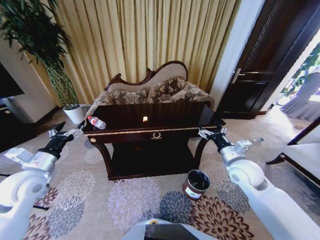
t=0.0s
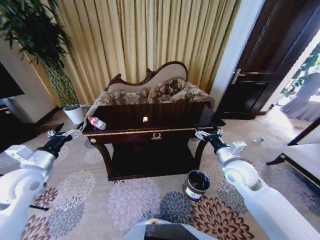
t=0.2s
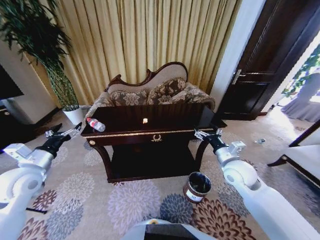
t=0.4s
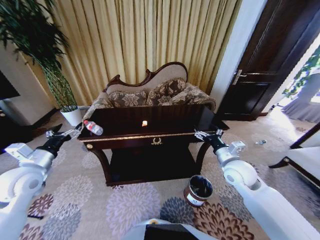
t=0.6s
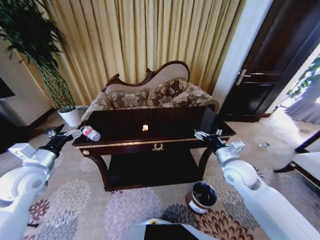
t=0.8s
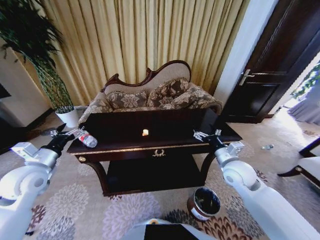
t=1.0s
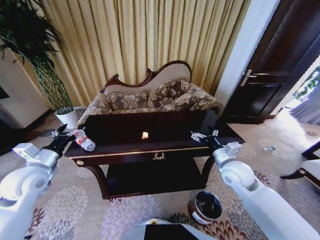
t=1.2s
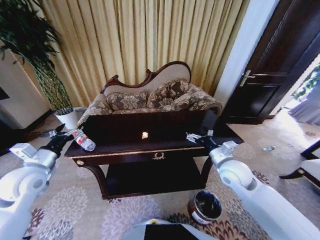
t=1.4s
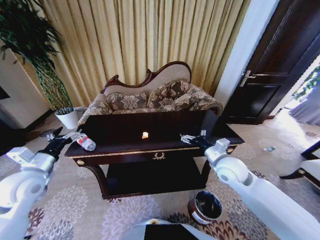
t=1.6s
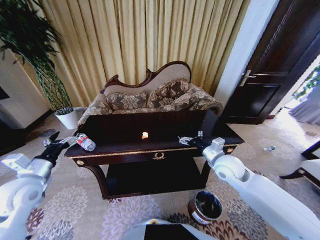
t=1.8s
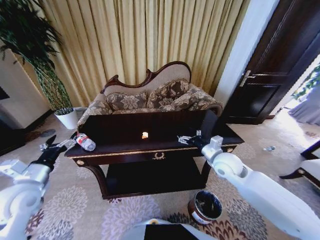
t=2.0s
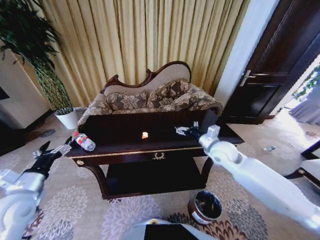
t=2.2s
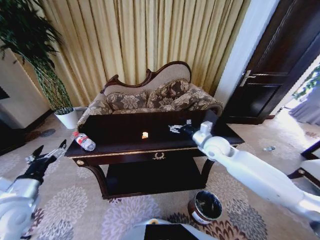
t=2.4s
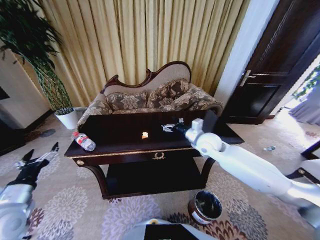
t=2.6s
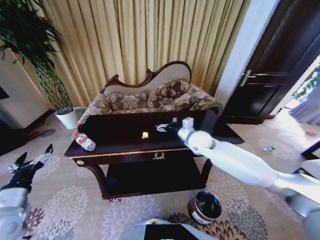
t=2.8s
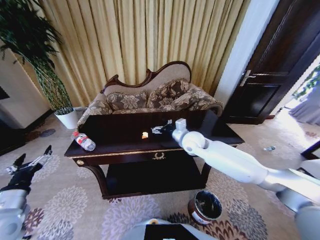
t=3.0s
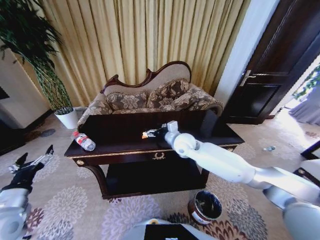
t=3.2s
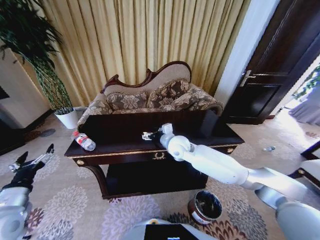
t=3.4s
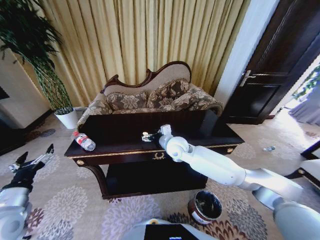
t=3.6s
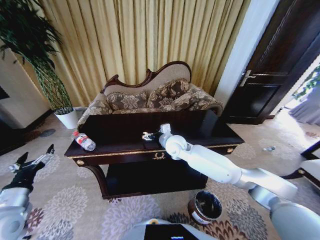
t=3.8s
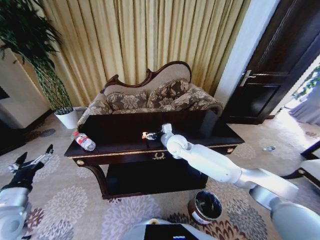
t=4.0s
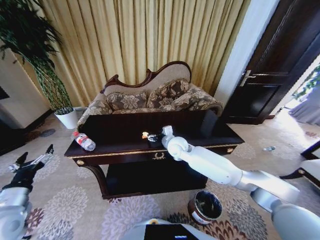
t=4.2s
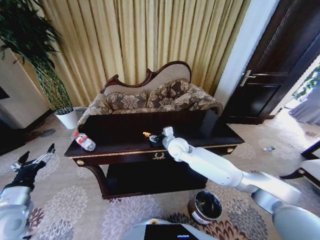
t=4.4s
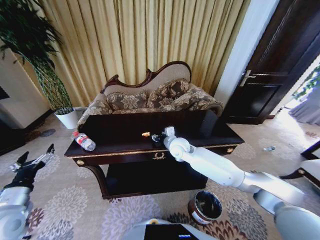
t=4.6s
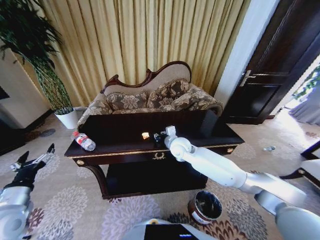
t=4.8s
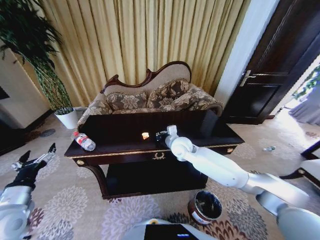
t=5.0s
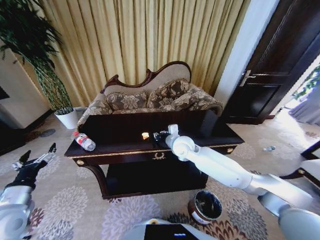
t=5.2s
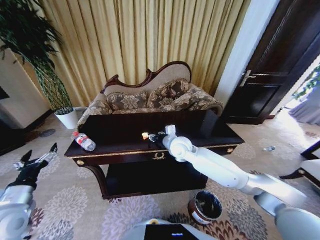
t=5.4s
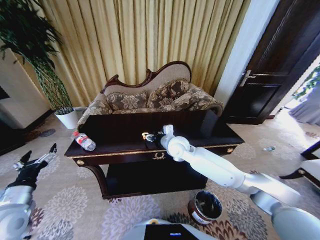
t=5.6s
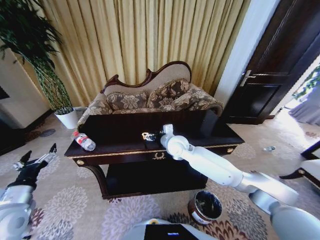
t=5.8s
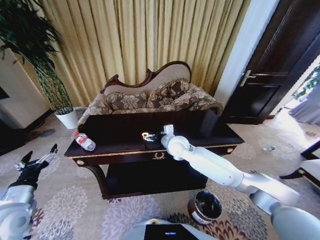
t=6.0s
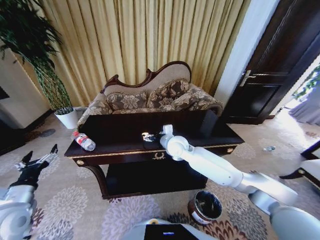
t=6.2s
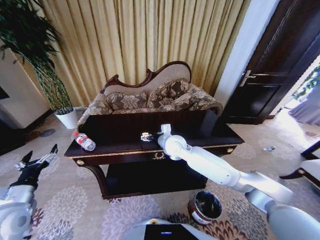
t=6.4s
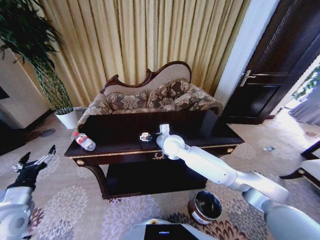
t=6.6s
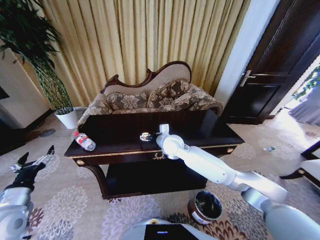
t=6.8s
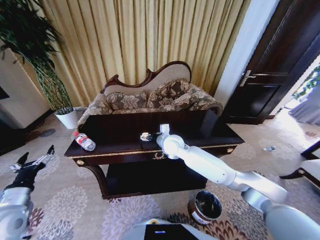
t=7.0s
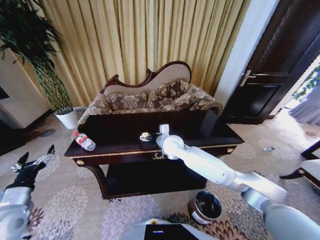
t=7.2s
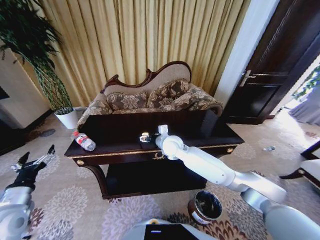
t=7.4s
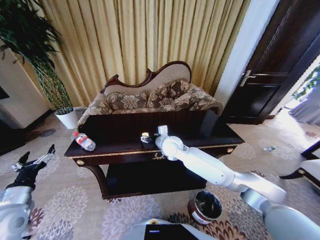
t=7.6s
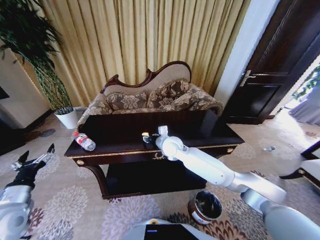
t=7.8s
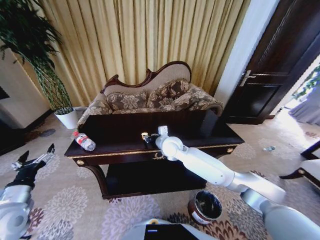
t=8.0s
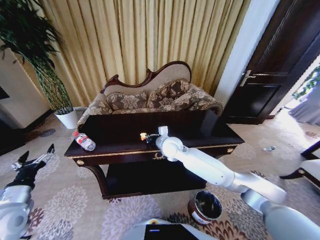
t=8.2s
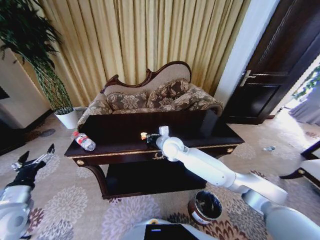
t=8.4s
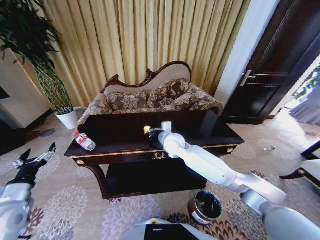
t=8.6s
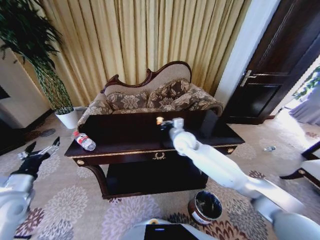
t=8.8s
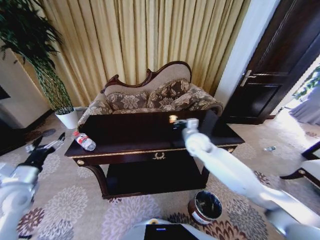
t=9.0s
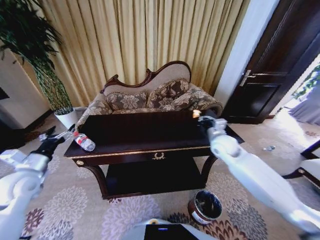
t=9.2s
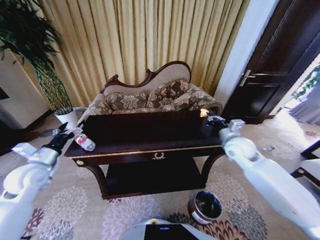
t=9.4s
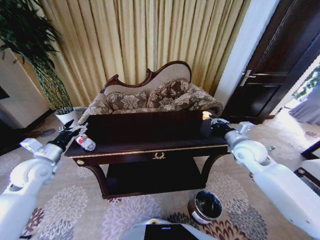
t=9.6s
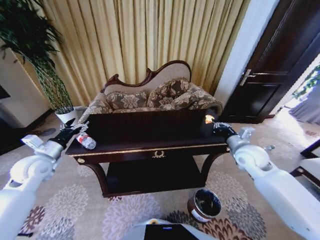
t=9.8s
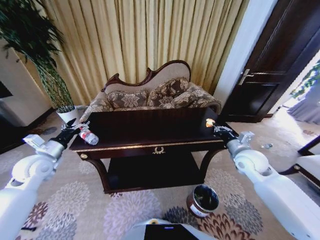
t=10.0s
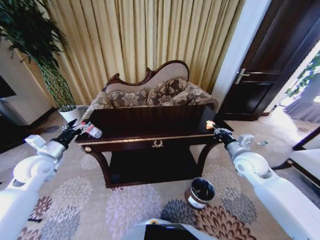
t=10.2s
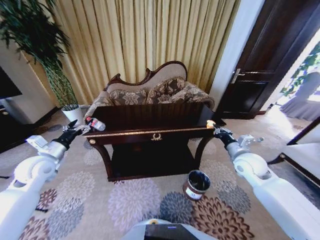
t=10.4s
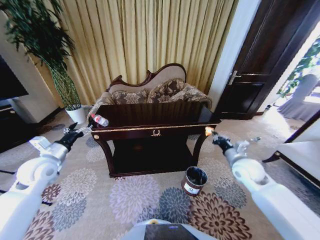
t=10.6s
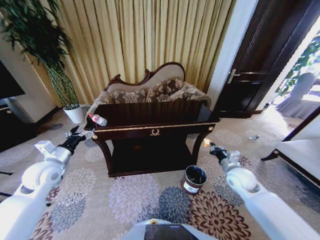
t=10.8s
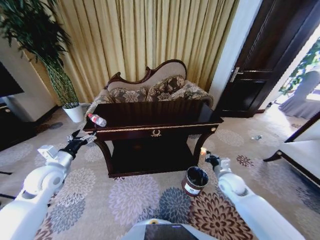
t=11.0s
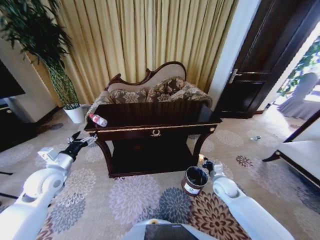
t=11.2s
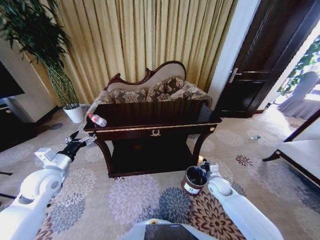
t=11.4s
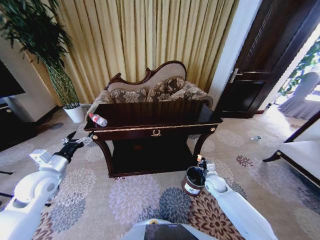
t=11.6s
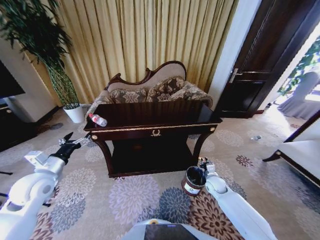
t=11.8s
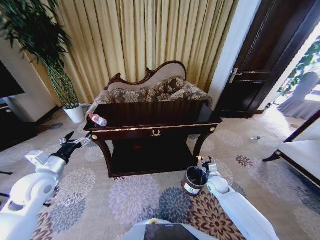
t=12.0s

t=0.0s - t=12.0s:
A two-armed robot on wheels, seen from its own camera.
Task of the whole recording: Move to the front of the table and place the trash on the table into the trash bin.
t=1.6s - t=3.0s: The left gripper moves backward, some 10 cm. Meanwhile the right gripper moves forward and to the left, approximately 15 cm.
t=3.0s - t=4.4s: The right gripper goes some 5 cm to the left.
t=4.4s - t=6.0s: The right gripper closes, then reopens.
t=6.0s - t=7.6s: The grippers move only a little.
t=7.6s - t=9.0s: The left gripper heads forward, covering about 5 cm. Meanwhile the right gripper shifts approximately 10 cm to the right, and closes.
t=9.0s - t=10.4s: The left gripper goes approximately 10 cm forward, while the right gripper moves to the right and backward, some 20 cm.
t=10.4s - t=12.0s: The right gripper heads downward, covering approximately 25 cm, and opens its fingers; the left gripper shifts about 5 cm backward.

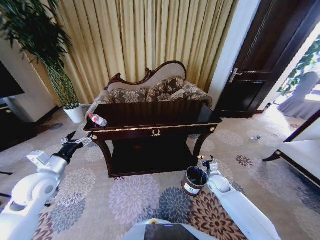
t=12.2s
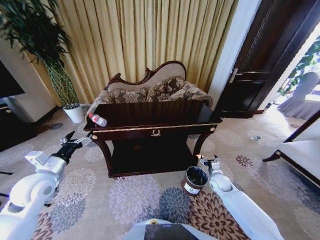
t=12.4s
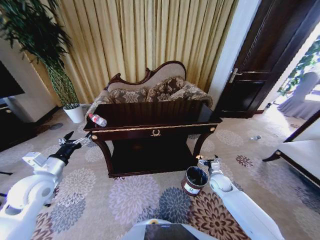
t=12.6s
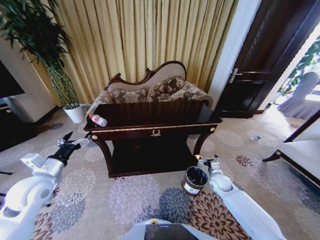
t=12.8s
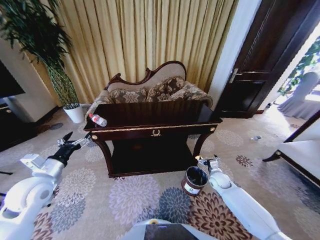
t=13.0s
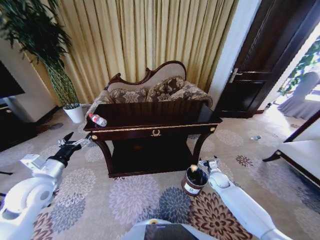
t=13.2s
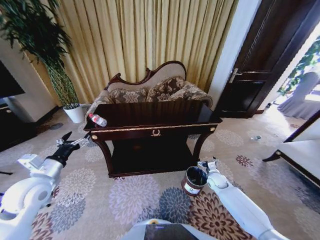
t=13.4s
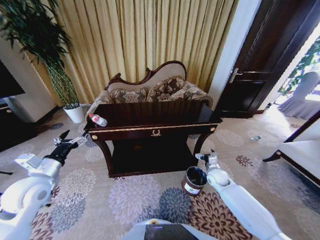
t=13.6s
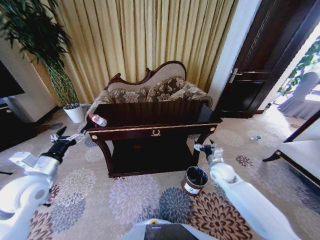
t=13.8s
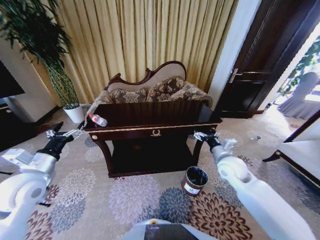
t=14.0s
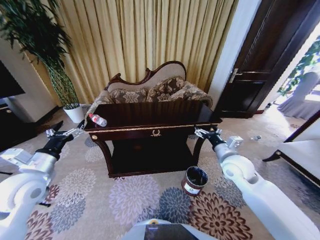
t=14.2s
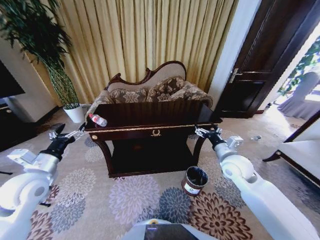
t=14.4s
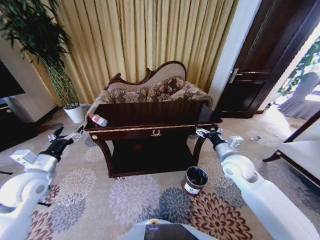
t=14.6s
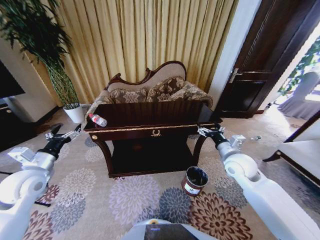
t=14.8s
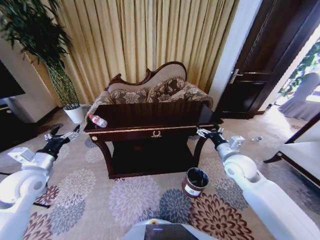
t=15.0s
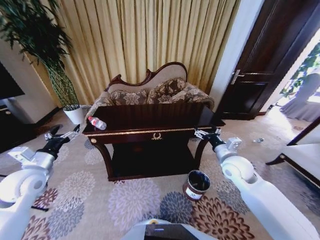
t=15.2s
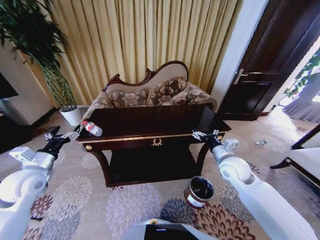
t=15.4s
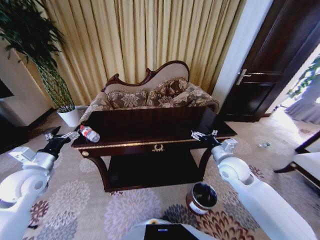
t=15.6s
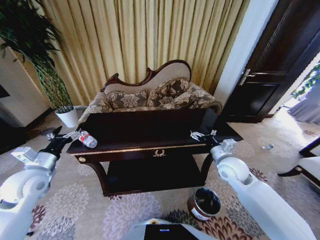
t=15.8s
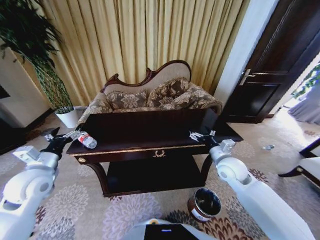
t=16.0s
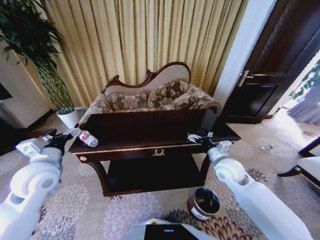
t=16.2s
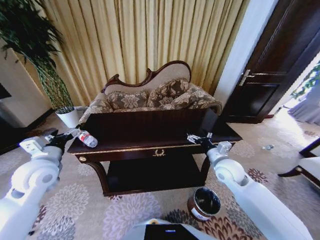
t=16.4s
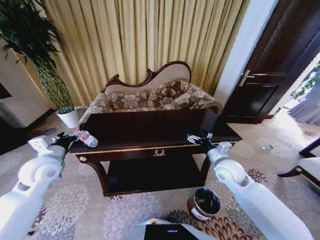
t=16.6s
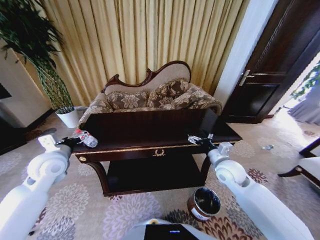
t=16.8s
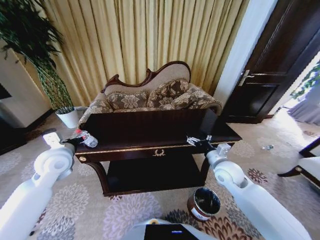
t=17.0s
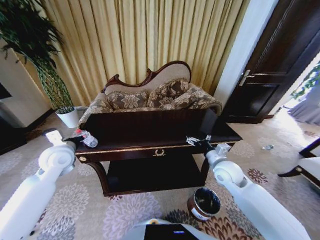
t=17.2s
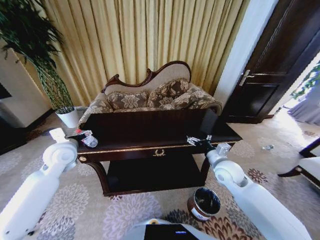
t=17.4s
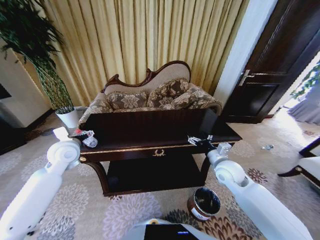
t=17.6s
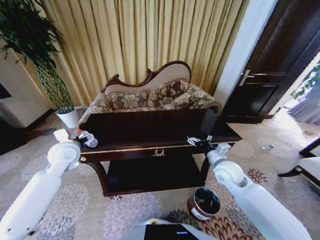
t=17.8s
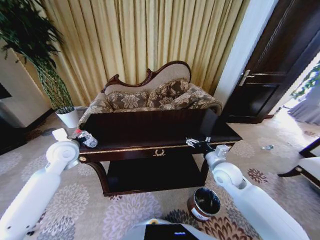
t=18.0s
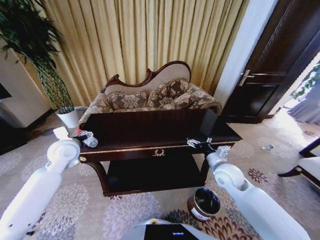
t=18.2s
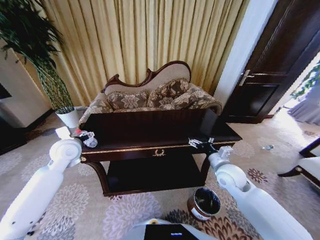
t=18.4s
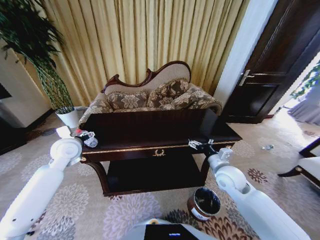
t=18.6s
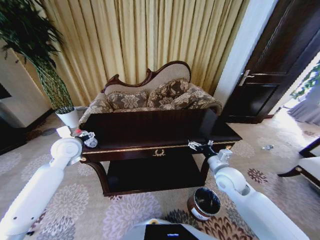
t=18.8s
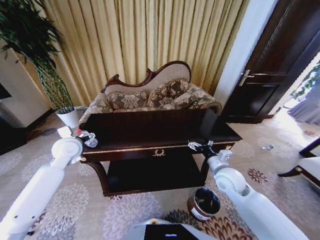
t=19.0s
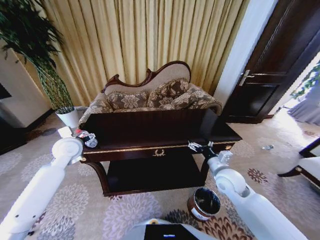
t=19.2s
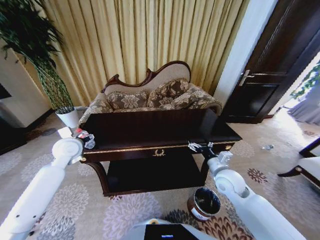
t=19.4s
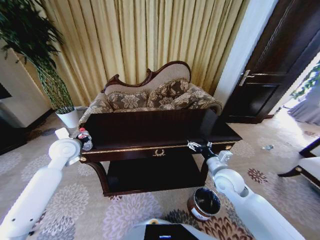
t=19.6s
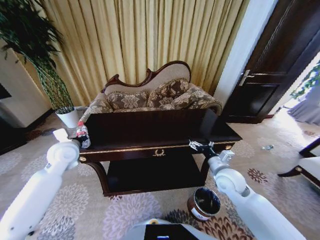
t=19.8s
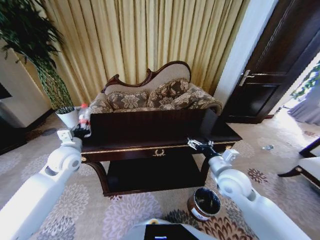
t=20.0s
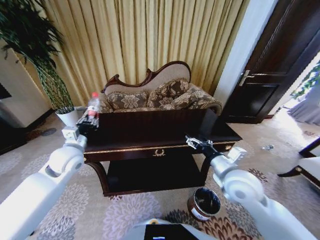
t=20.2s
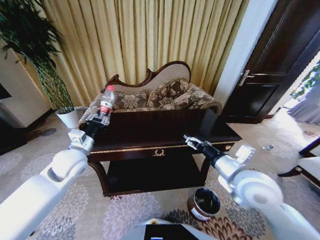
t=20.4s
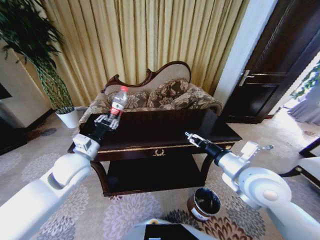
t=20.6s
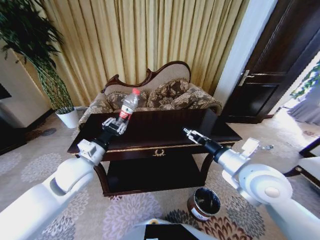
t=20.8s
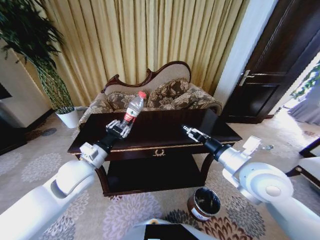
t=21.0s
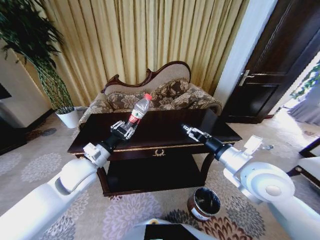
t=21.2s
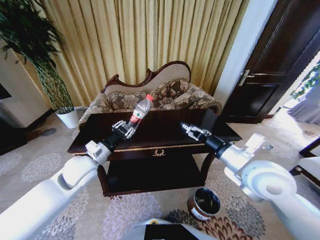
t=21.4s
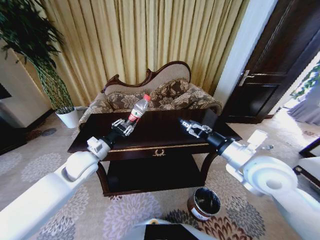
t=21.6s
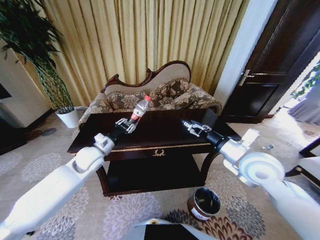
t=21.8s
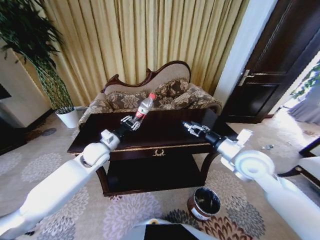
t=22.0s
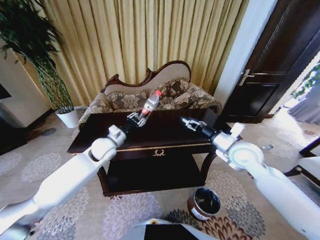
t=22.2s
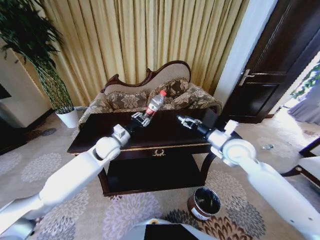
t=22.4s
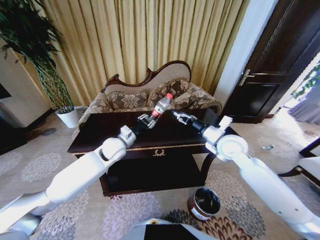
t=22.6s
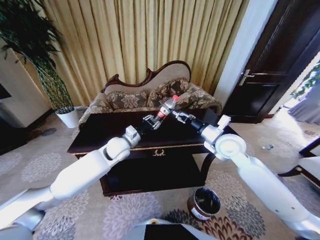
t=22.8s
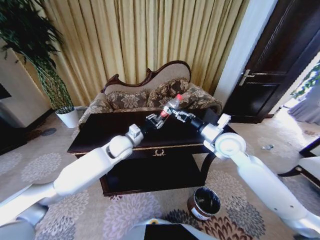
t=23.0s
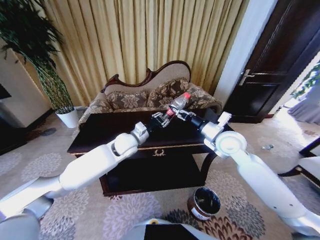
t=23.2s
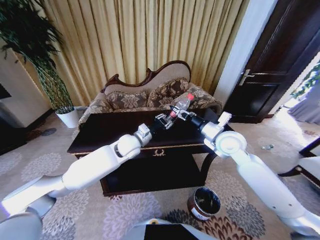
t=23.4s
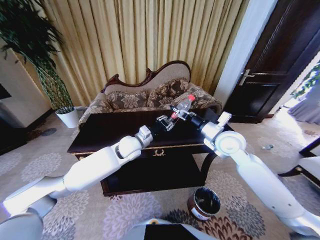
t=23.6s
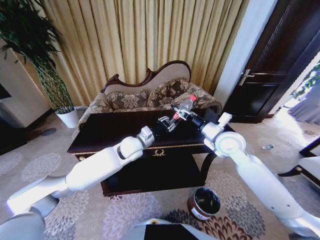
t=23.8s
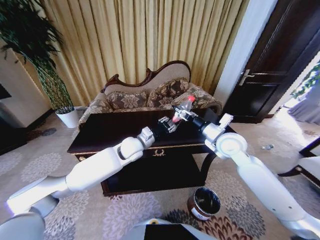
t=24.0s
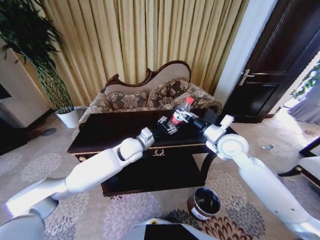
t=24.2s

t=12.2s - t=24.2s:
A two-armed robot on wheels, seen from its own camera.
Task of the whole recording: Move to the front of the table and place the trash on the table into the trash bin.
t=12.2s - t=13.8s: The right gripper travels upward by approximately 10 cm.
t=13.8s - t=15.2s: The right gripper is displaced upward by about 10 cm.
t=15.2s - t=16.6s: The left gripper moves some 5 cm.
t=16.6s - t=18.2s: The left gripper moves forward, about 5 cm.
t=18.2s - t=19.8s: The left gripper closes.
t=19.8s - t=21.2s: The right gripper moves upward, some 15 cm. Meanwhile the left gripper shifts some 15 cm to the right and backward.
t=21.2s - t=22.6s: The left gripper is displaced forward and to the right by approximately 15 cm. Meanwhile the right gripper shifts some 15 cm forward.
t=22.6s - t=24.2s: The left gripper heads to the right, covering roughly 10 cm.
